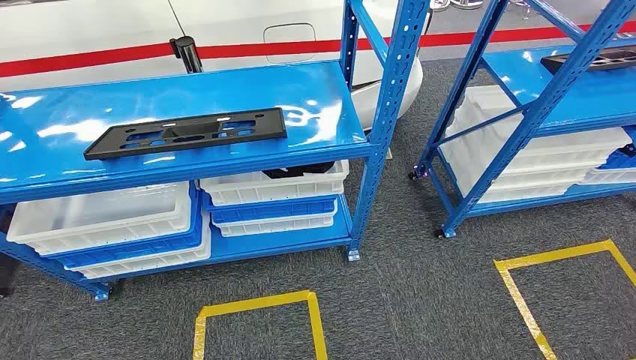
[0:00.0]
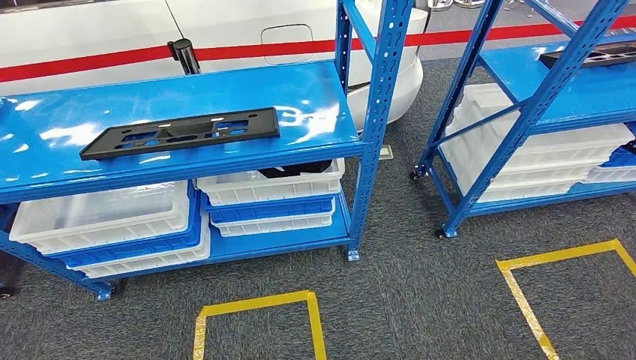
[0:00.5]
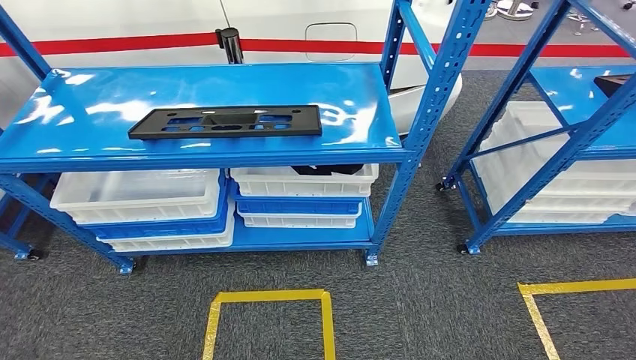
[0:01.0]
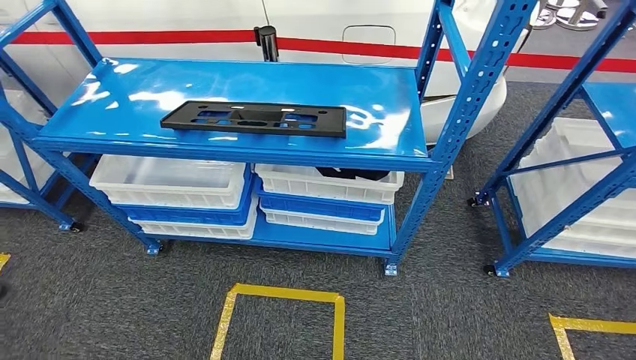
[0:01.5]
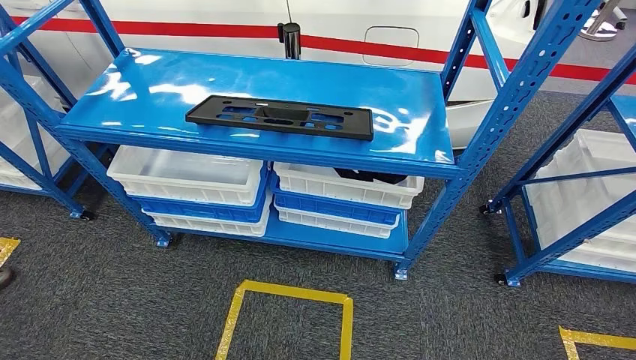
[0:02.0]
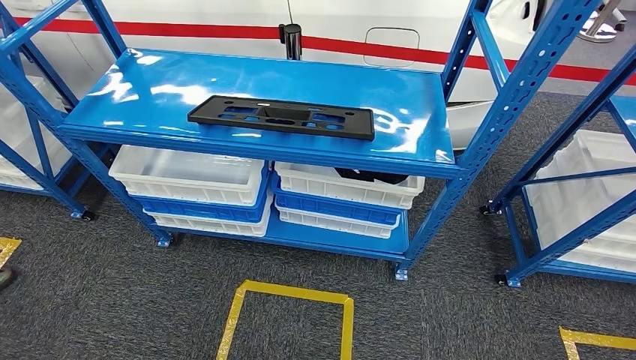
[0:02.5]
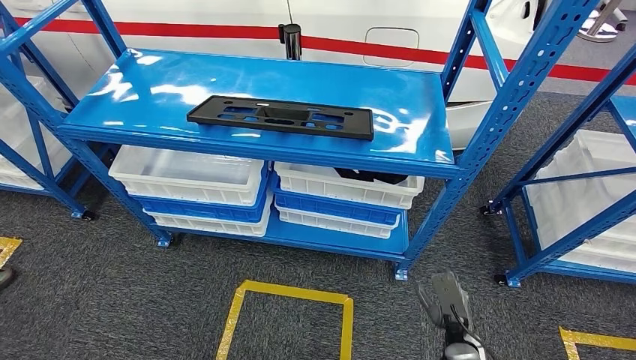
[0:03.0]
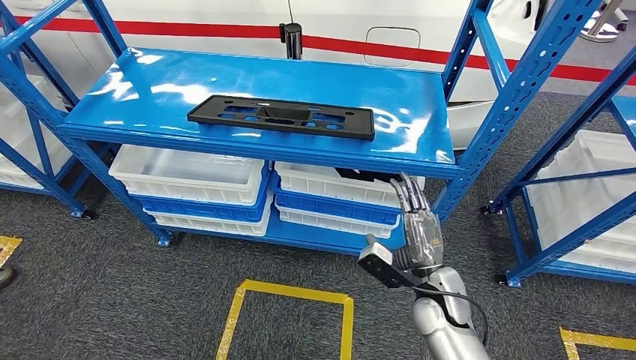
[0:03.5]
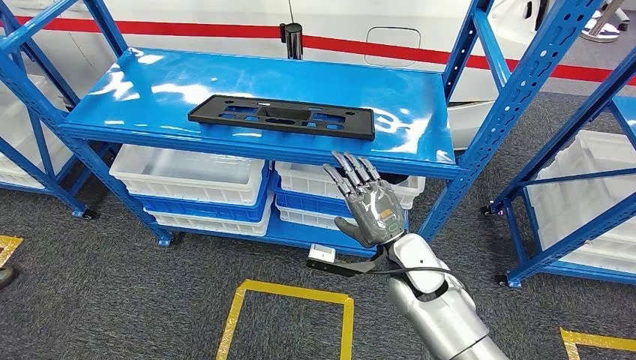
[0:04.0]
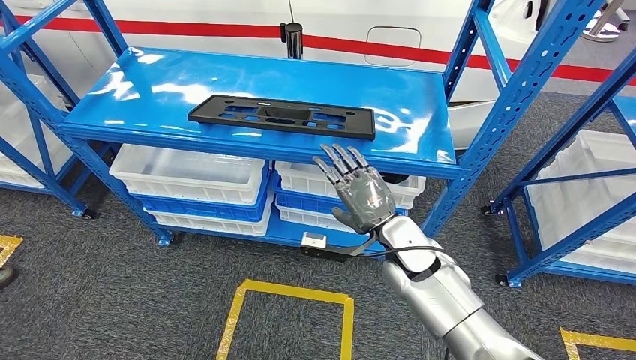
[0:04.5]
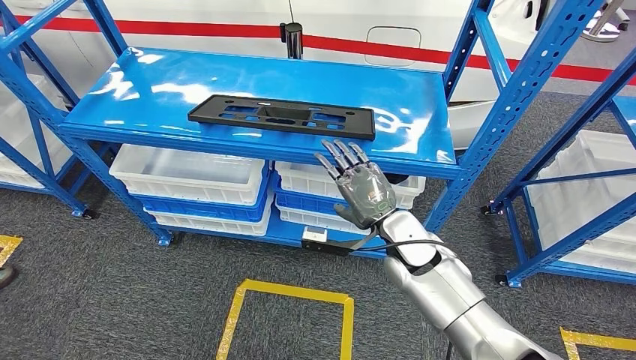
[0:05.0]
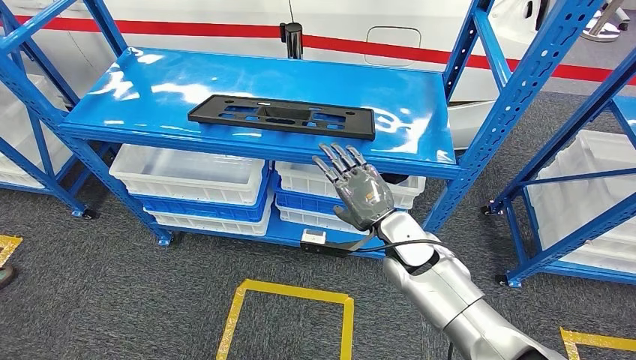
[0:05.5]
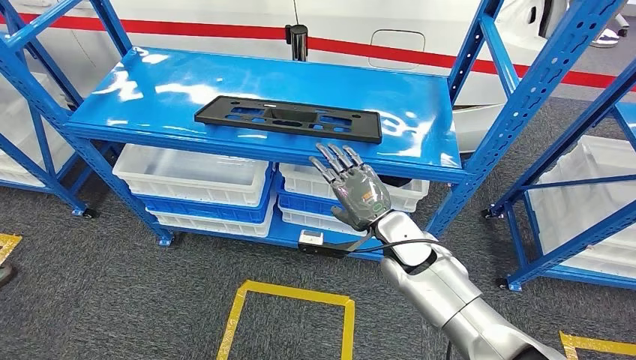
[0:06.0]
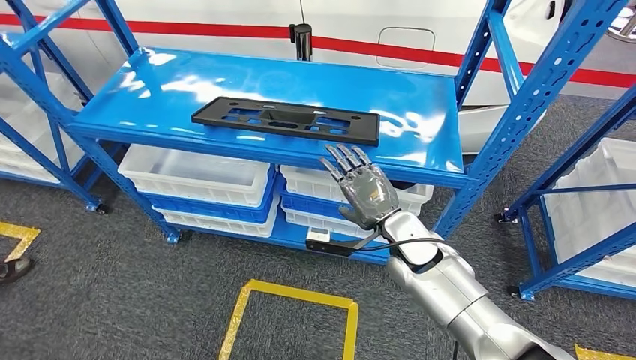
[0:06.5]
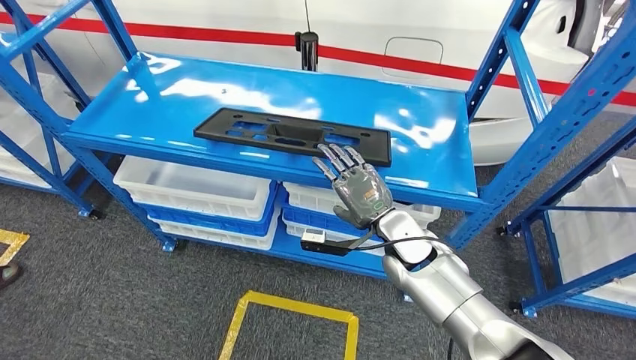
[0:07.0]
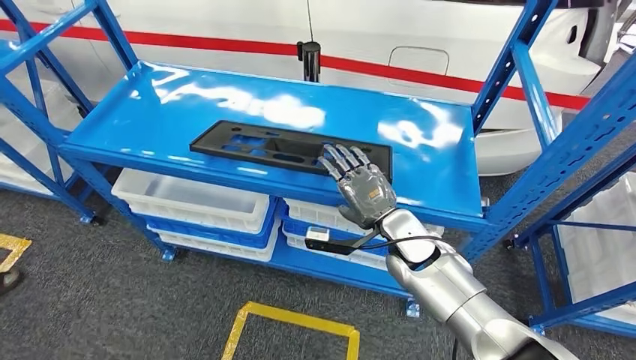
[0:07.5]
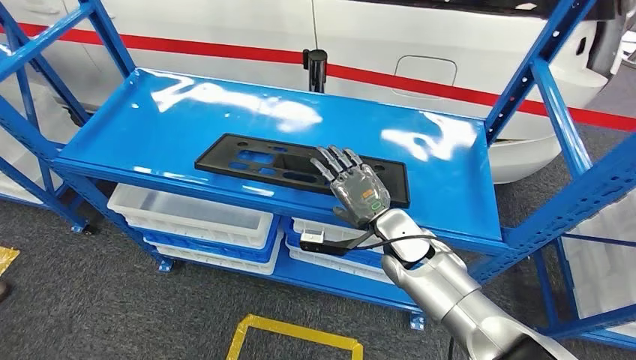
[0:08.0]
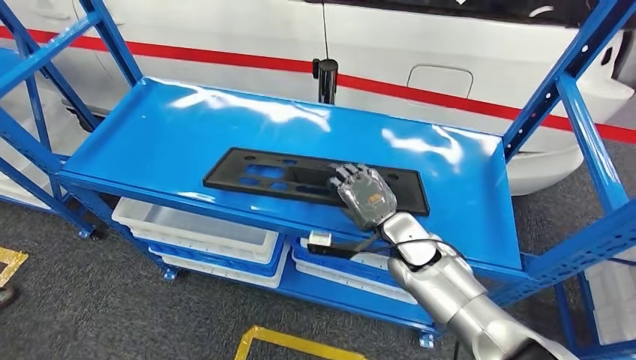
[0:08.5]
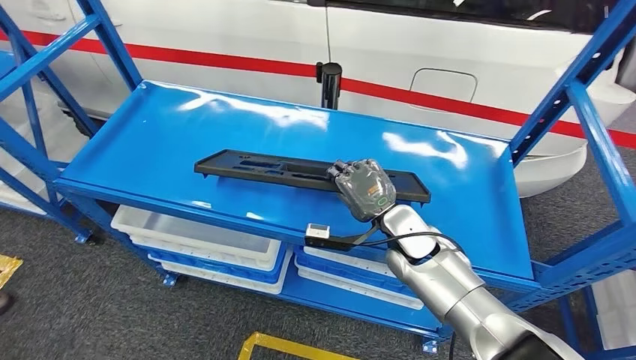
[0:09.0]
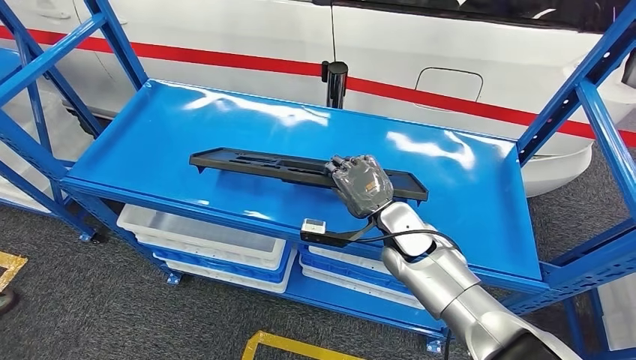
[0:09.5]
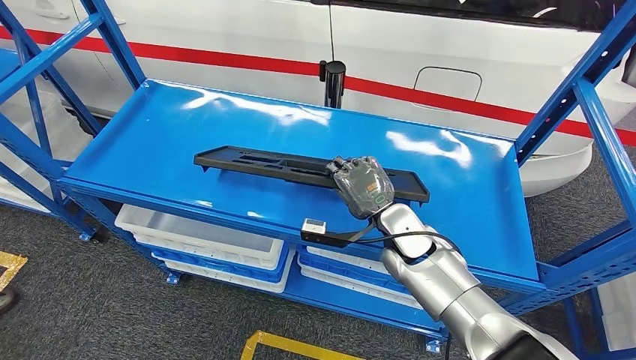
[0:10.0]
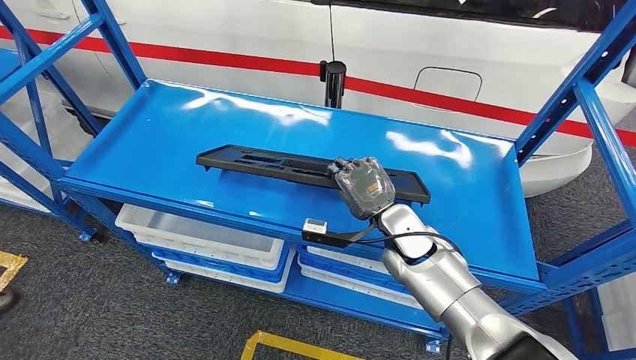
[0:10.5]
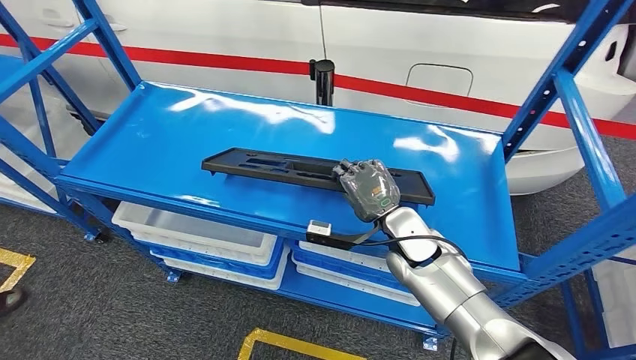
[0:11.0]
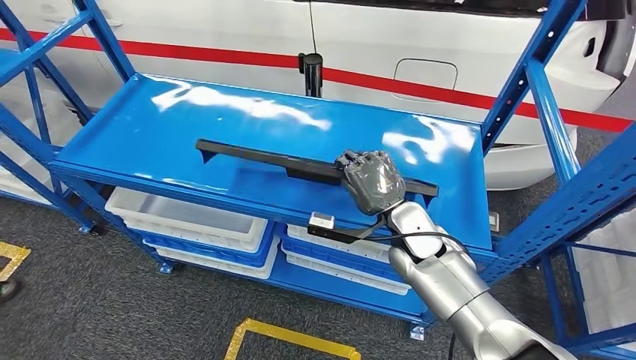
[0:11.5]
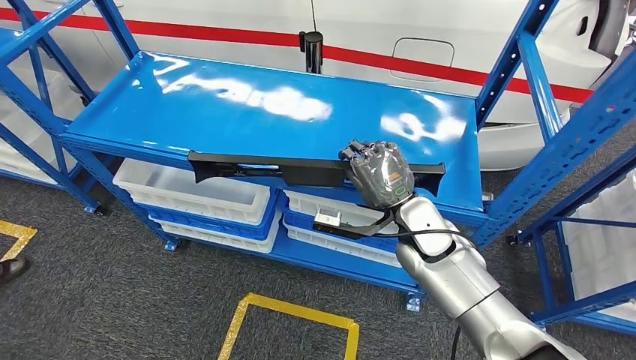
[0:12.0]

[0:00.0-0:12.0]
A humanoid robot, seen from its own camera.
Step, 0:00.0 to 0:11.5: Pick up the large material from the shelf.
0:02.0 to 0:04.0: The right hand heads upward, forward and to the left, covering roughly 40 cm.

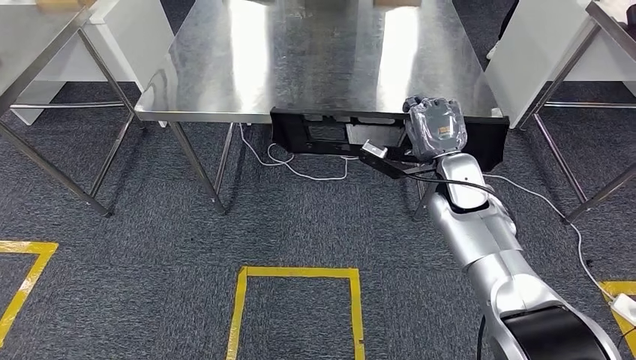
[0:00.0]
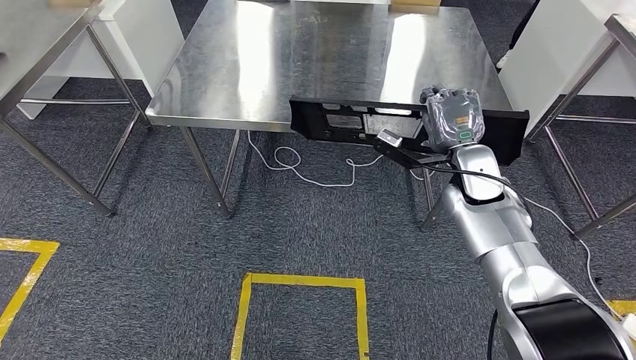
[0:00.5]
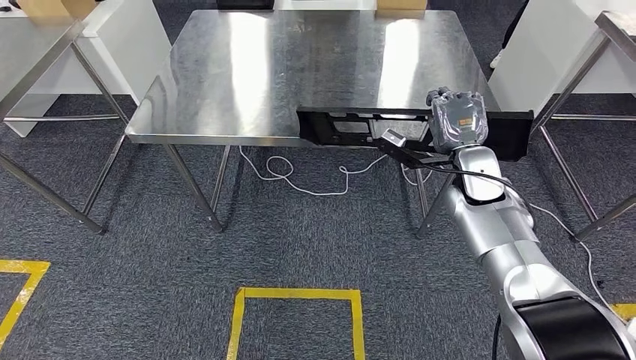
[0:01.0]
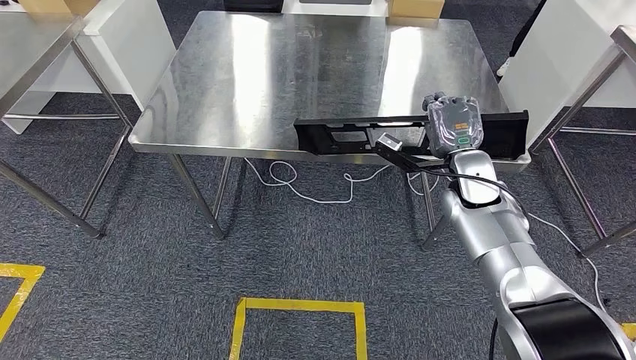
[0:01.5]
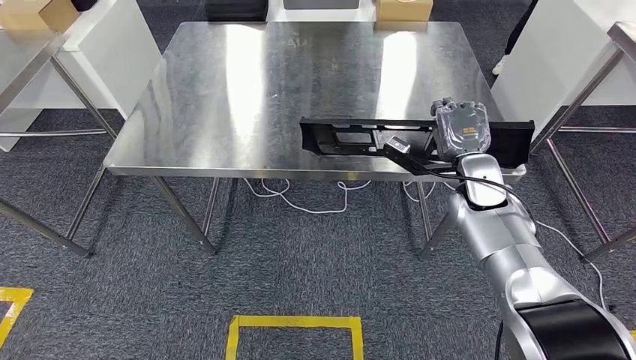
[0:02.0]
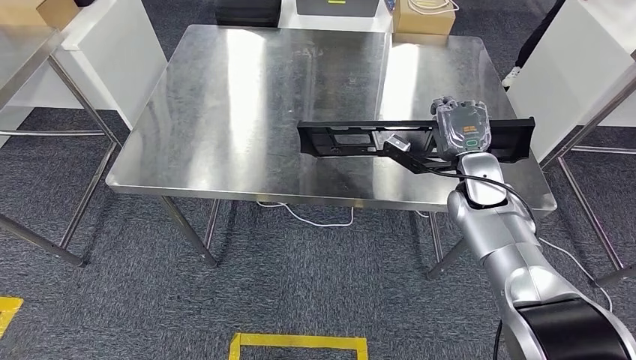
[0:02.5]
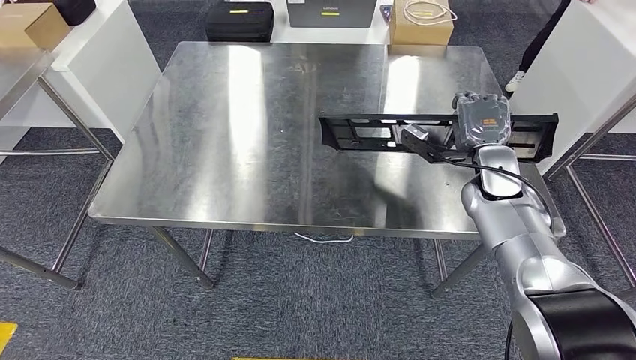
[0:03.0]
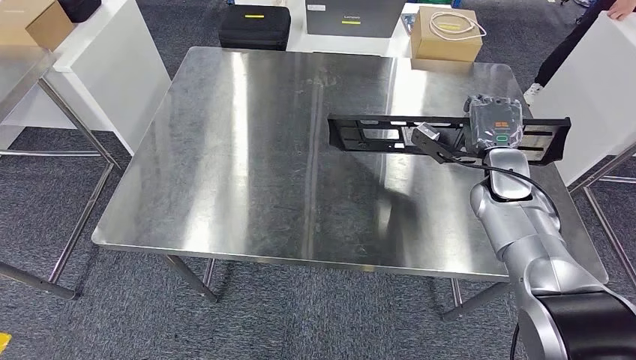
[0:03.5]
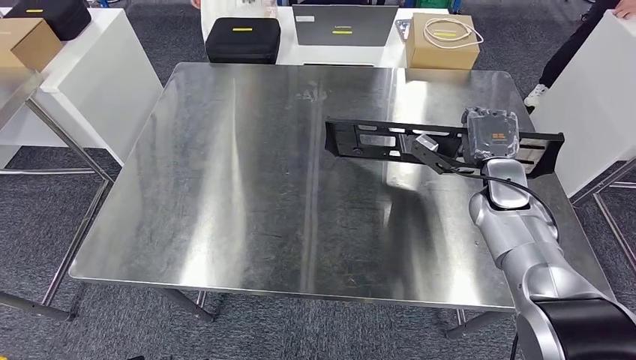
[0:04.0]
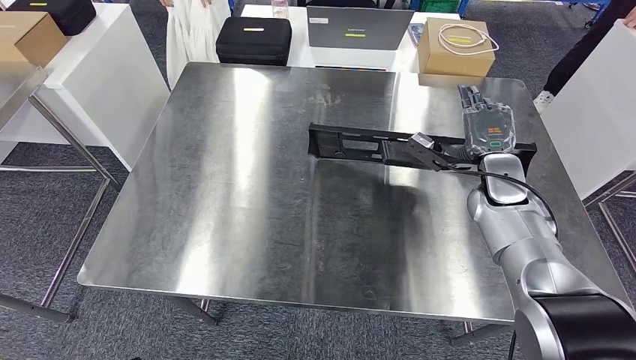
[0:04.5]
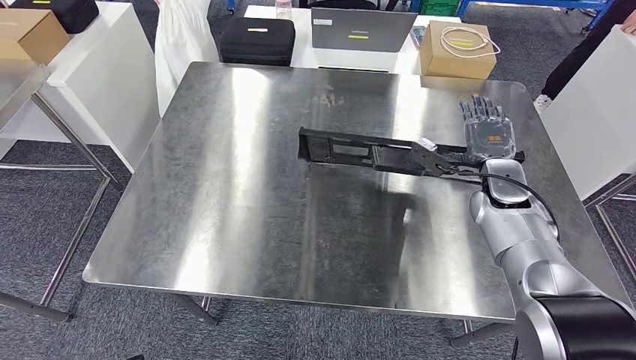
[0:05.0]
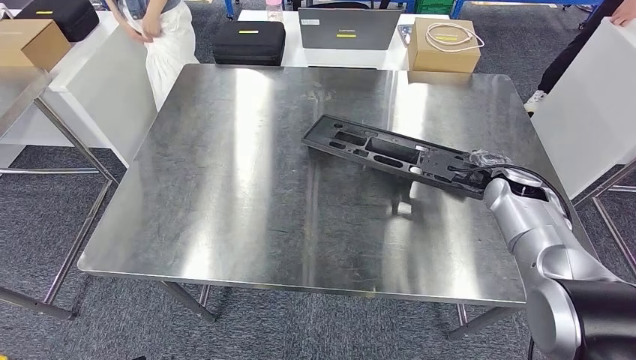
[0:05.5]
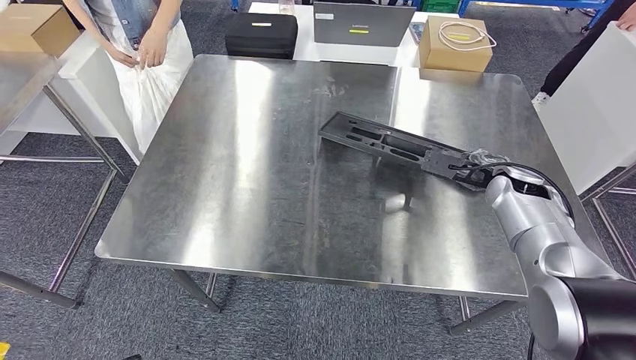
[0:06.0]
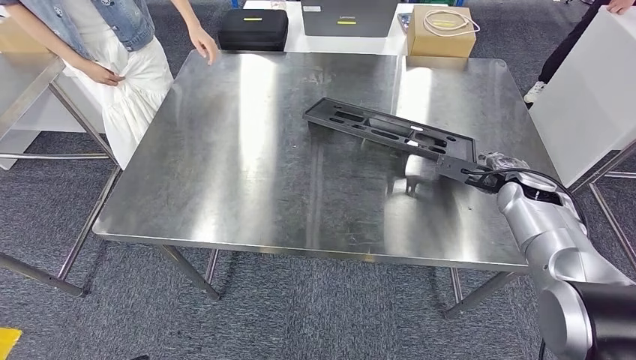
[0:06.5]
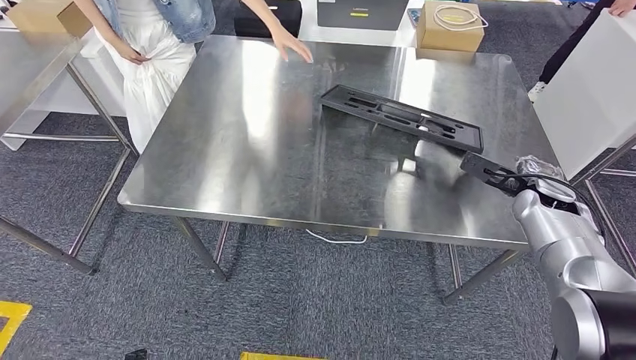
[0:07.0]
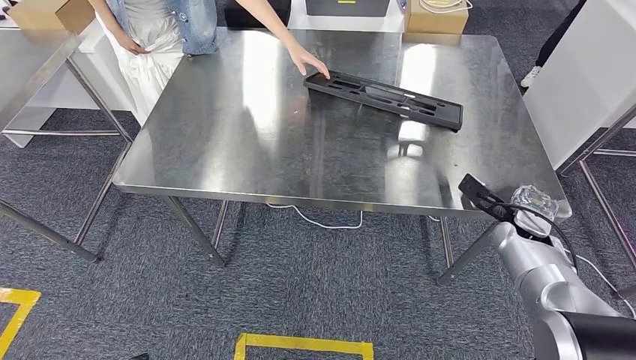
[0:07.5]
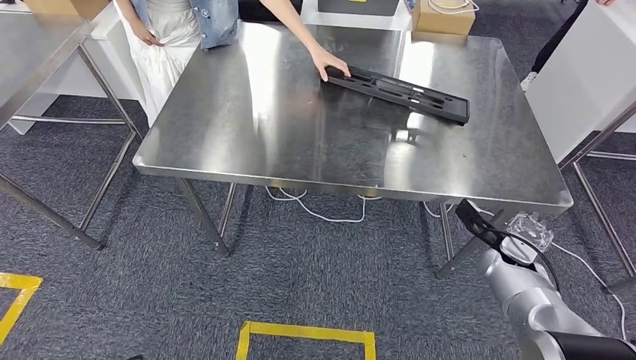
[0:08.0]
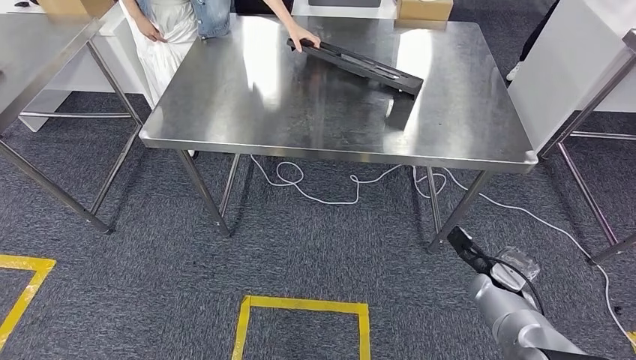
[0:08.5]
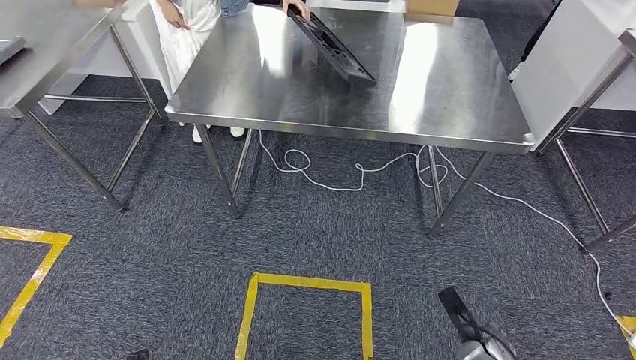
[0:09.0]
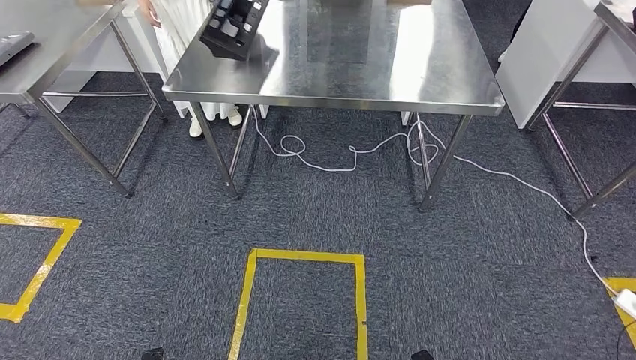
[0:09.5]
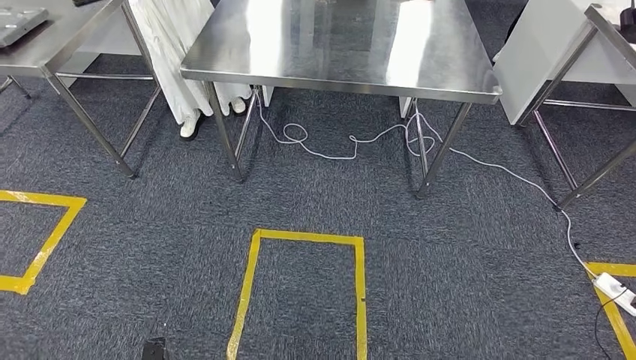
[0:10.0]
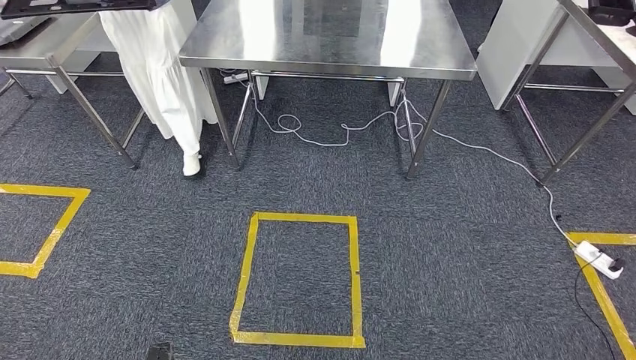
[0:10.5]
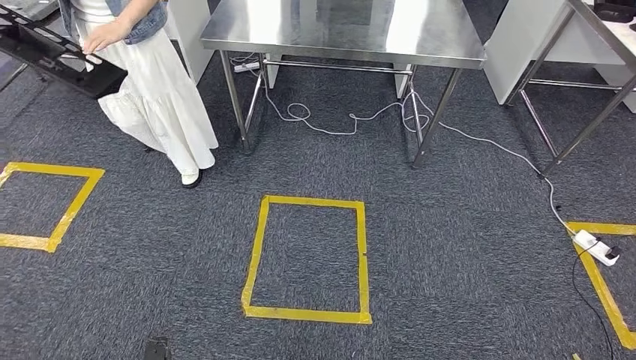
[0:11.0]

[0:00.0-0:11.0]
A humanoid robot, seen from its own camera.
Step, 0:01.5 to 0:08.0: Insert the large material into the corresponding slot on the workbench.
